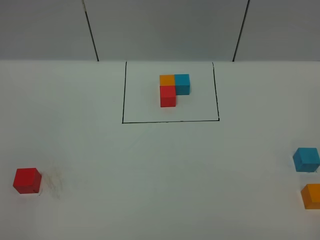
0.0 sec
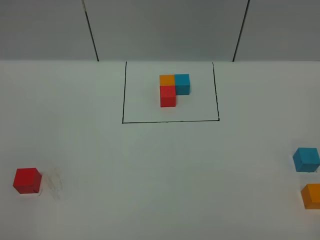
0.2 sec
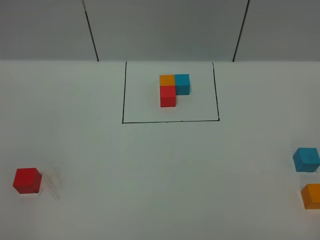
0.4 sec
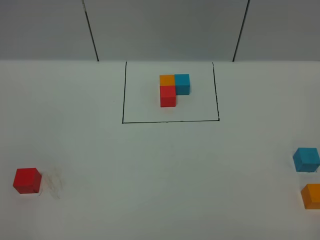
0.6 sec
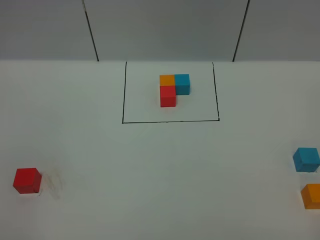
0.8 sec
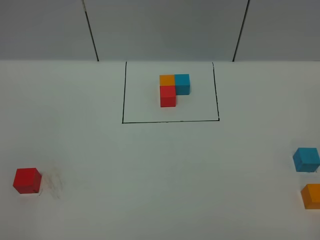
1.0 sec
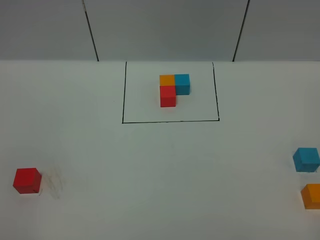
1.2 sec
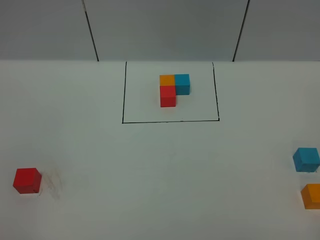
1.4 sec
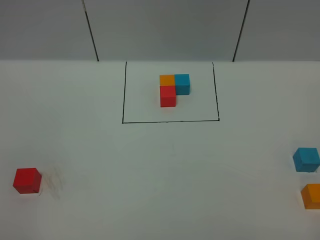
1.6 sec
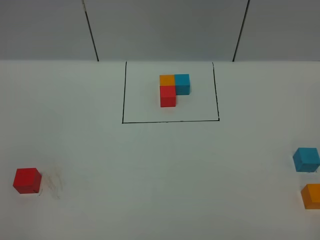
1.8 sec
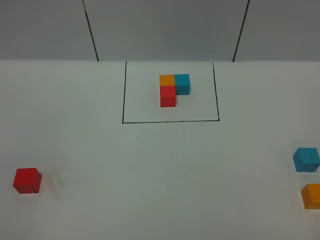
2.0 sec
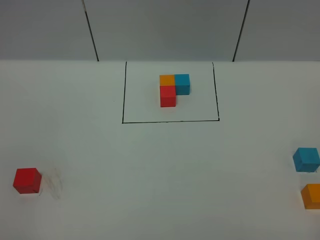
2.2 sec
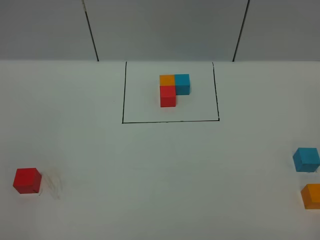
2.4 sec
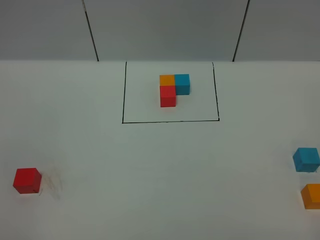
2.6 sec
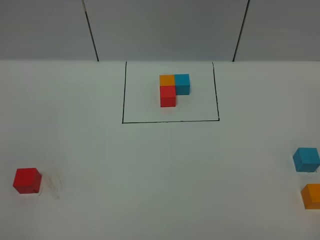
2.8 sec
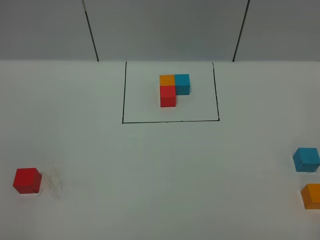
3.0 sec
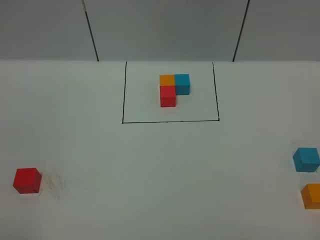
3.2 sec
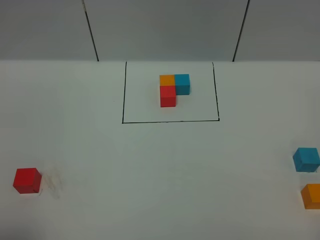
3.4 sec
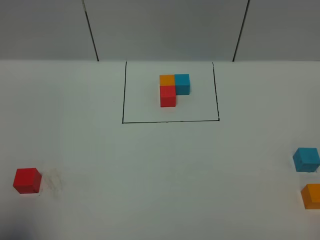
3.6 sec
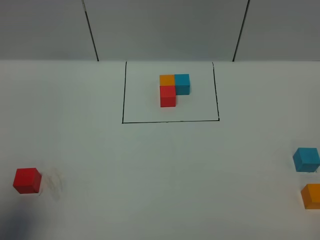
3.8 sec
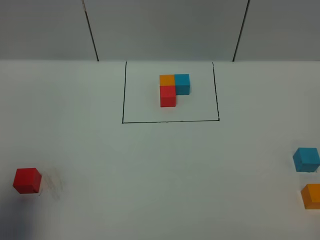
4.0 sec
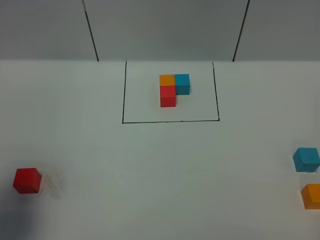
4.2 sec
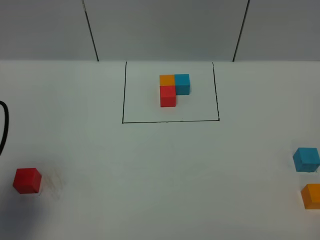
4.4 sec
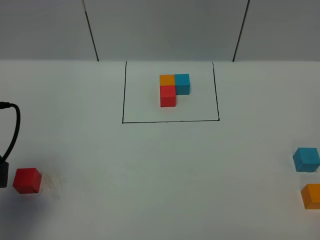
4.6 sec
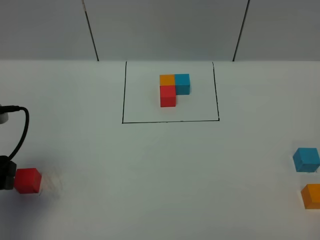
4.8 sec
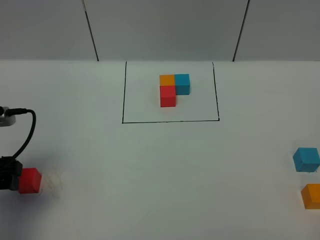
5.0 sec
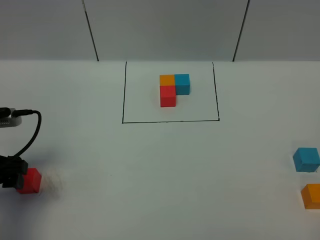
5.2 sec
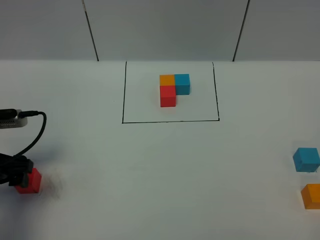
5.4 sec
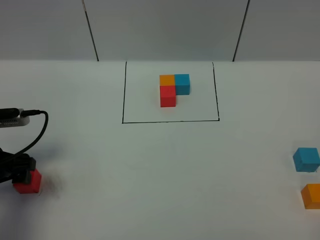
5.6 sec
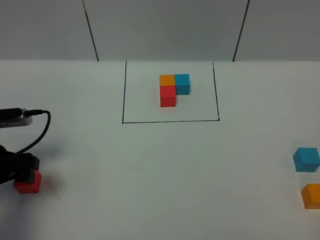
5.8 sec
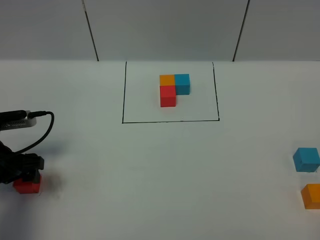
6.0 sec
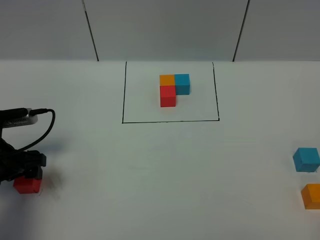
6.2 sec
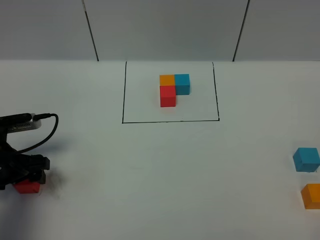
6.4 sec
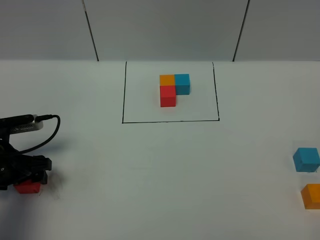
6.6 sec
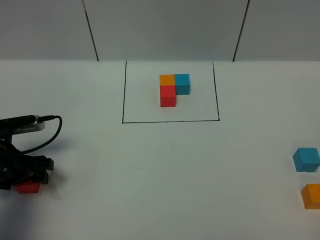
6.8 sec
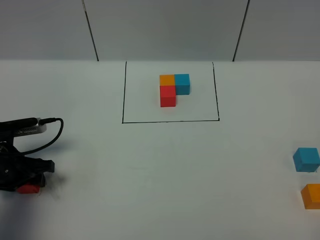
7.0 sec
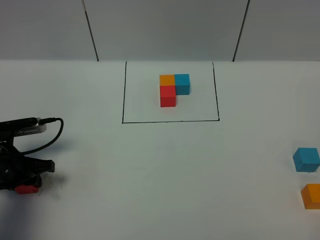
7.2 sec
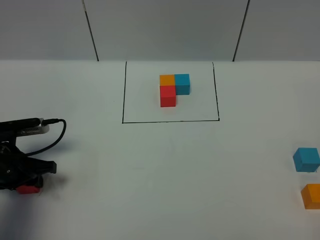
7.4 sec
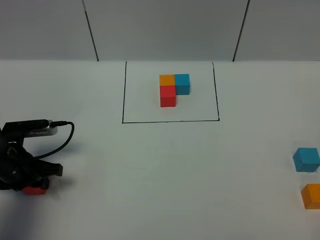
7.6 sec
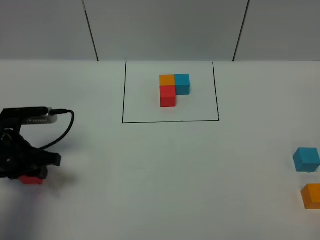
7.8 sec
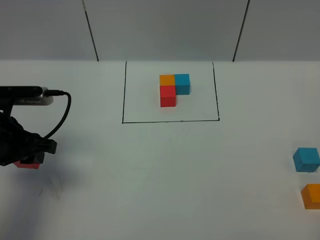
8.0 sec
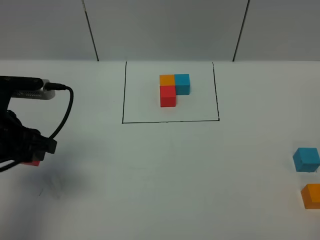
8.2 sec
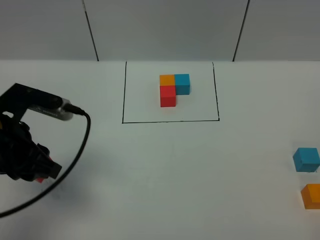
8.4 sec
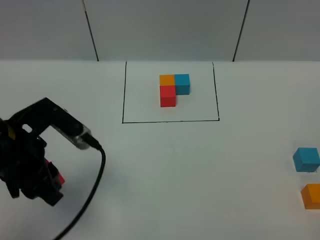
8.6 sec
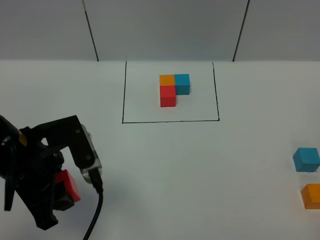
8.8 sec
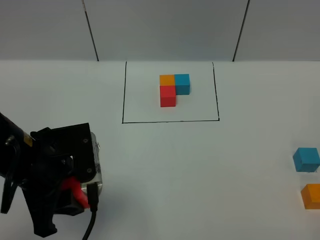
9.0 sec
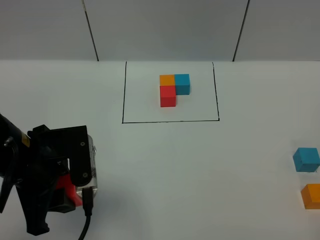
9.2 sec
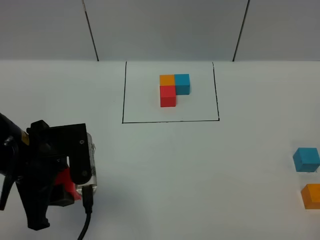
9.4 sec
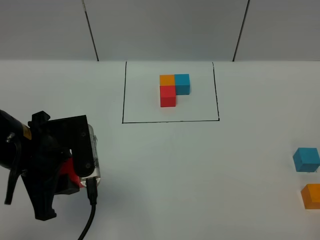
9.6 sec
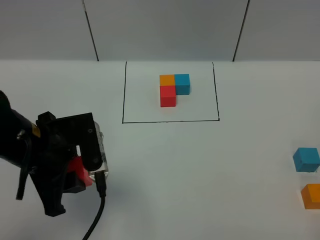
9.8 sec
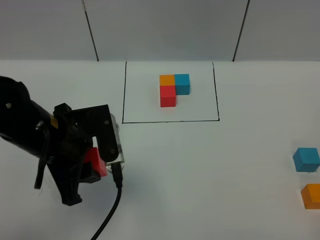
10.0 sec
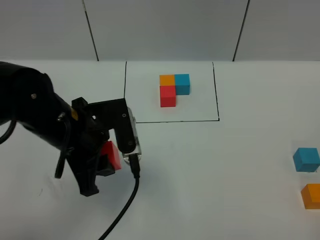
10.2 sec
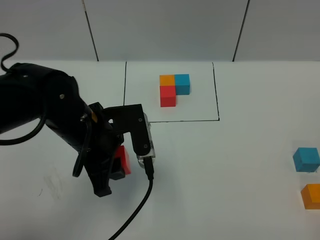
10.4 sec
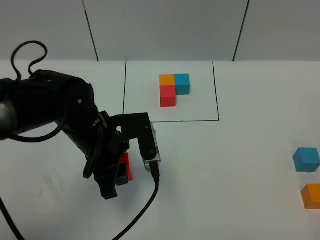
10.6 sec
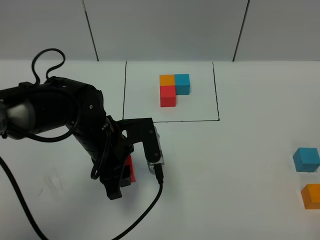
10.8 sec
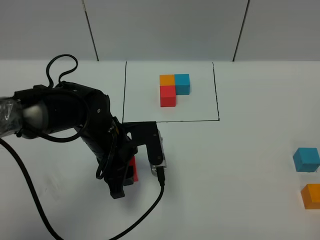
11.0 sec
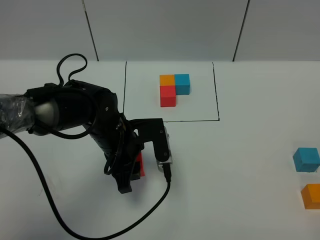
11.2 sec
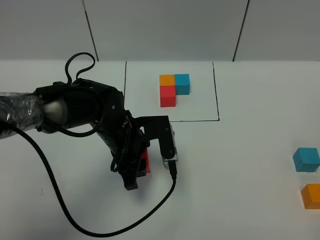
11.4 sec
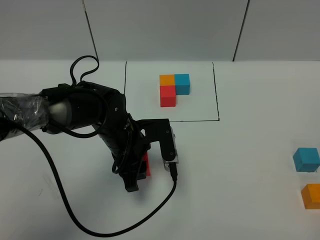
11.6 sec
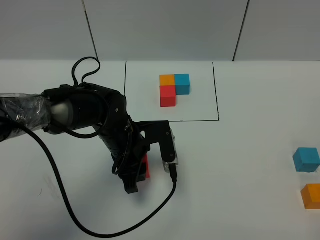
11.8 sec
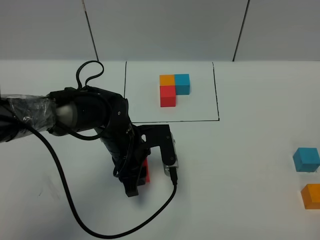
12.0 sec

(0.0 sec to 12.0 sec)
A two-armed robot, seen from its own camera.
Task of the whole recording: According to the building block template in front, assemble the scattered blocks together.
0.0 sec - 1.6 sec: Both grippers stay about where they are.
3.0 sec - 4.4 sec: The left gripper shifts roughly 20 cm forward.
4.4 sec - 6.0 sec: The left gripper heads downward and forward, covering approximately 15 cm.
6.0 sec - 7.6 sec: The left gripper closes up.
7.6 sec - 9.0 sec: The left gripper shifts approximately 20 cm upward, to the right and backward.
9.0 sec - 10.4 sec: The left gripper travels forward and to the right by some 10 cm.
10.4 sec - 12.0 sec: The left gripper shifts about 10 cm downward.

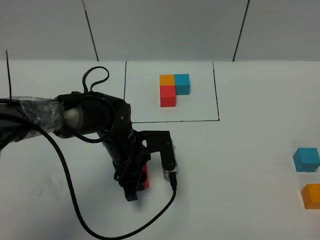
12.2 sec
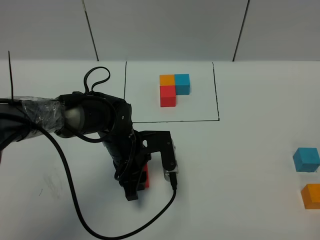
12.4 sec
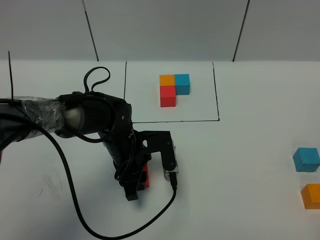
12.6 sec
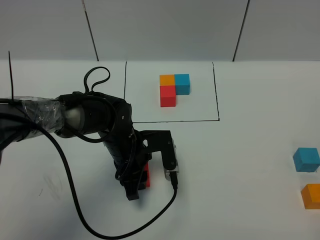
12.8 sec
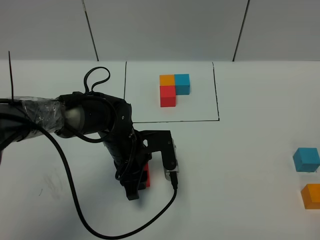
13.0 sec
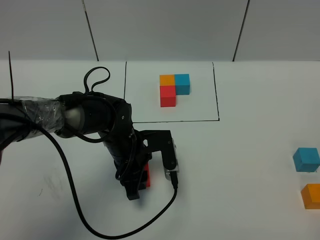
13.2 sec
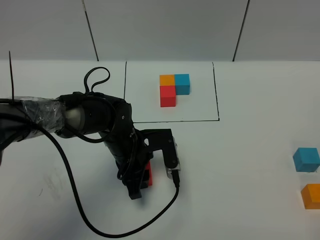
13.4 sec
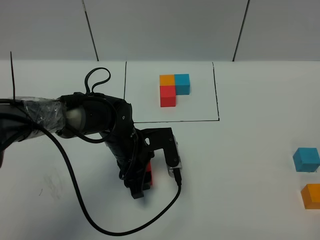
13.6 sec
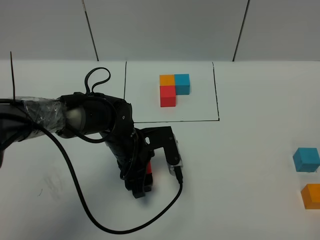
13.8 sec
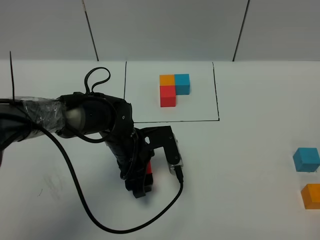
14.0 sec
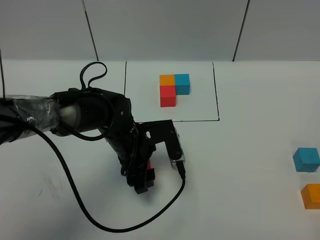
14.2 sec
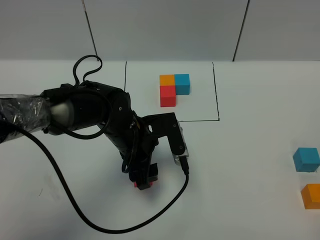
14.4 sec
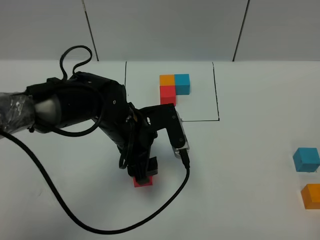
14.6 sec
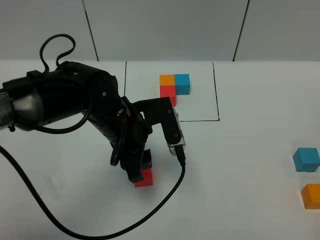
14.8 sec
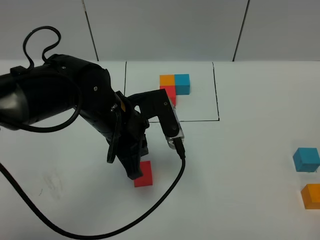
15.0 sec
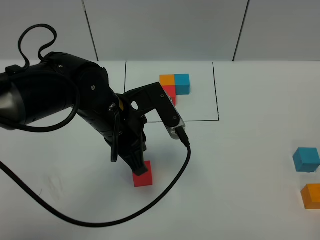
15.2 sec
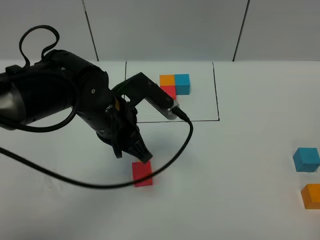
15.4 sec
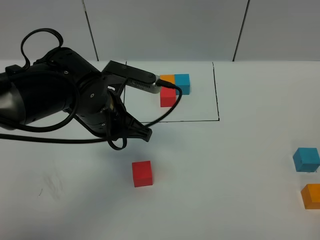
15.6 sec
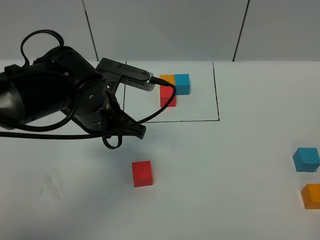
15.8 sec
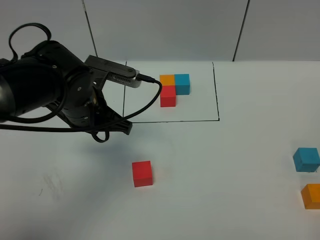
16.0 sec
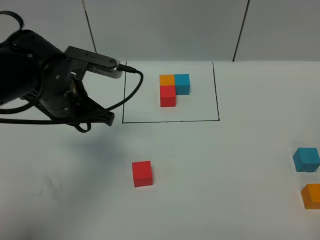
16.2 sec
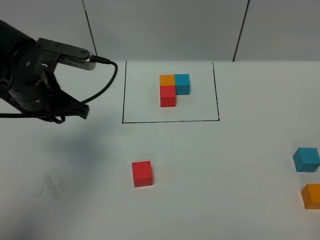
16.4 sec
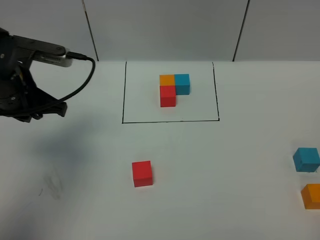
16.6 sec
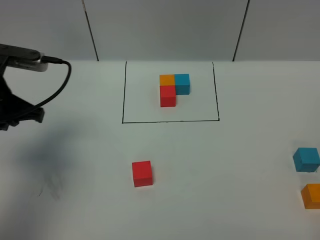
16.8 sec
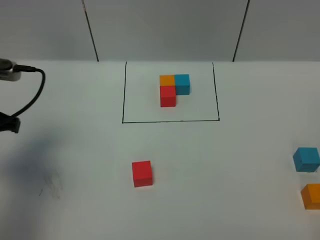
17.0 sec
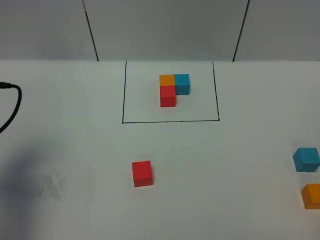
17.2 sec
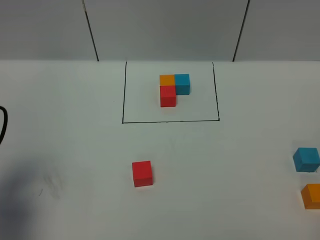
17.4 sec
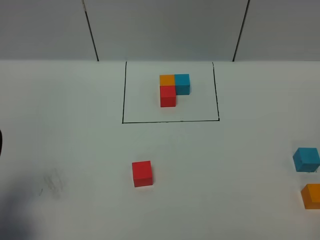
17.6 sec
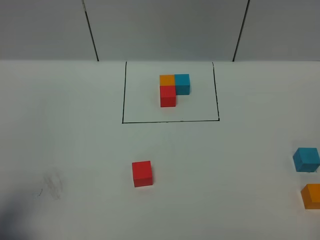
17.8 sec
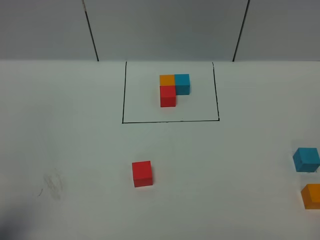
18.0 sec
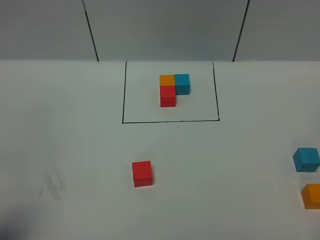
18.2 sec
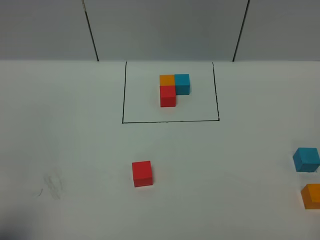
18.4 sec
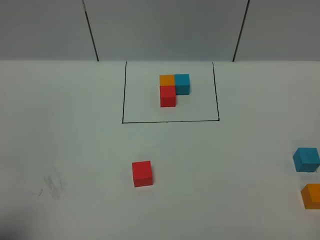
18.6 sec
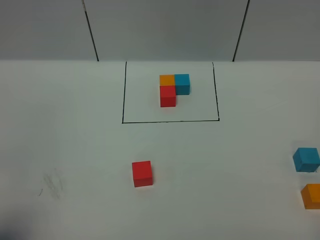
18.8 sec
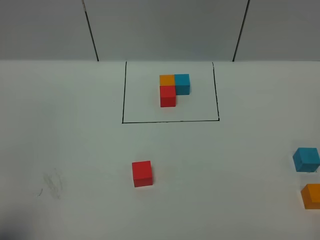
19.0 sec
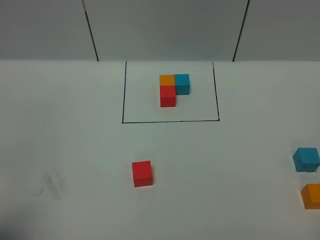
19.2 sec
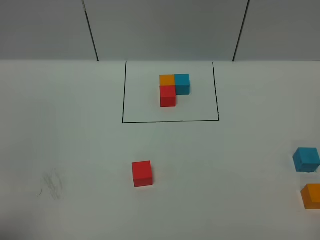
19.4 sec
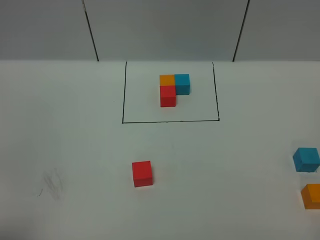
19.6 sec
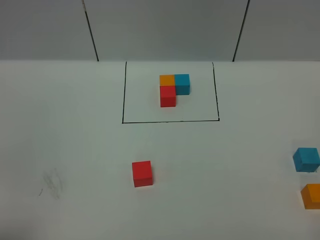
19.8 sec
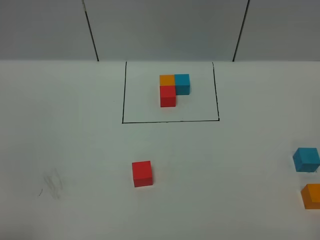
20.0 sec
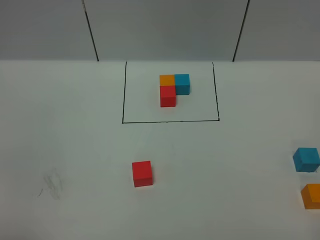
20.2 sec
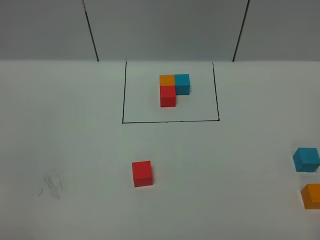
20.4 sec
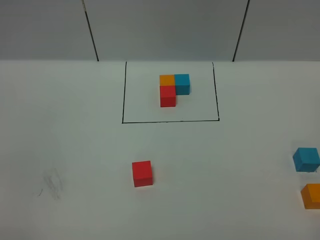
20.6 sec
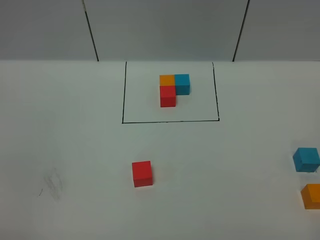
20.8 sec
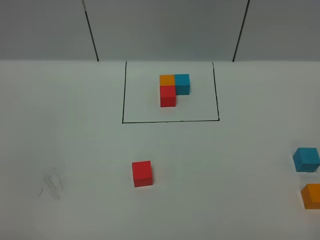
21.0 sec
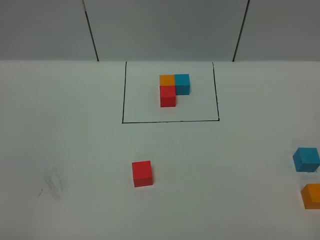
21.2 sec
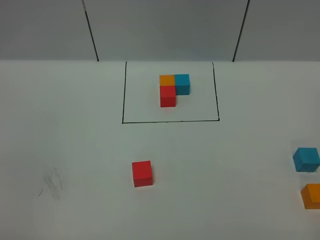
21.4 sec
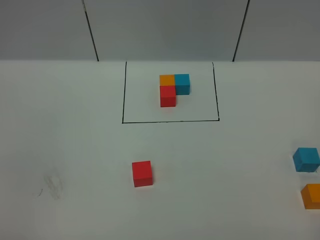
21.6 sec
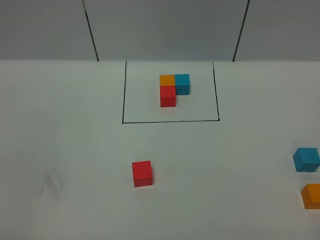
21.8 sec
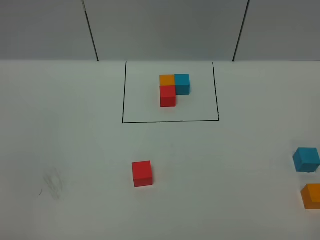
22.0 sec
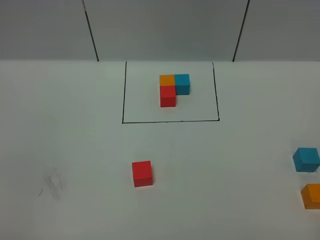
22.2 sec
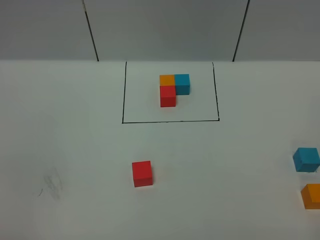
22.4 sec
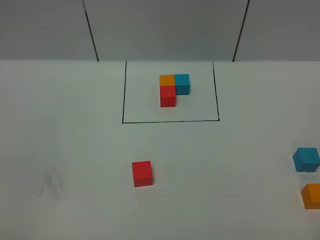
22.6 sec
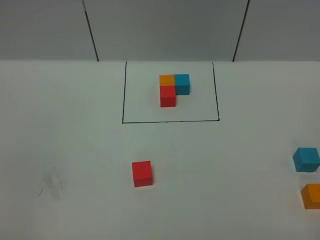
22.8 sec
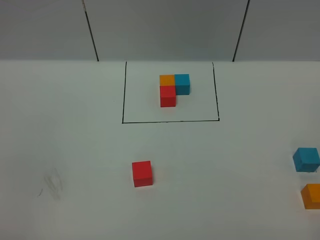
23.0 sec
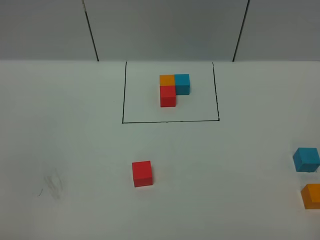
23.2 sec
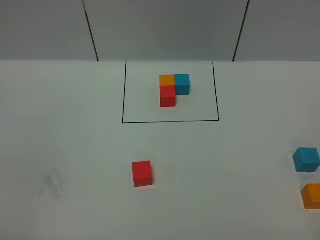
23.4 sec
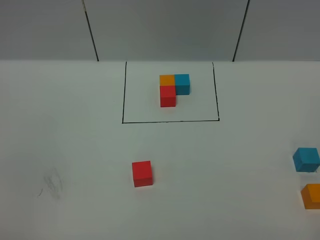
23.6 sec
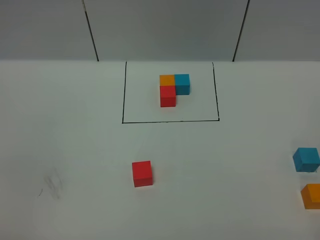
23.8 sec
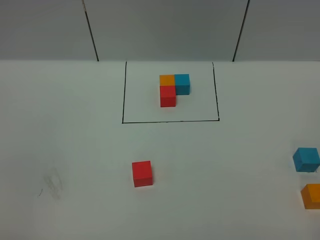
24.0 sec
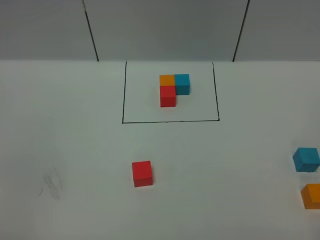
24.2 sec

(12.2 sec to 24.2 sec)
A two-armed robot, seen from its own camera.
Task of the whole recording: According to the building block template in front, assemble the scattered blocks together.
Step, 12.2 sec - 15.6 sec: Put the red cube in the center of the table.
12.2 sec - 13.8 sec: Both grippers stay put.
13.8 sec - 15.2 sec: The left gripper is displaced upward by some 10 cm, and closes.
15.2 sec - 16.6 sec: The left gripper heads to the left, covering some 15 cm.
16.6 sec - 18.2 sec: The left gripper heads backward, covering some 25 cm.
21.2 sec - 22.6 sec: Both grippers stay about where they are.
